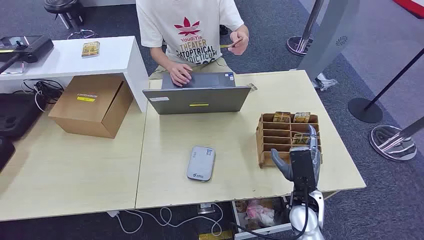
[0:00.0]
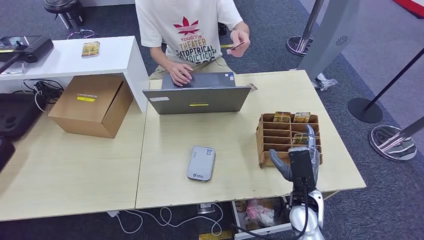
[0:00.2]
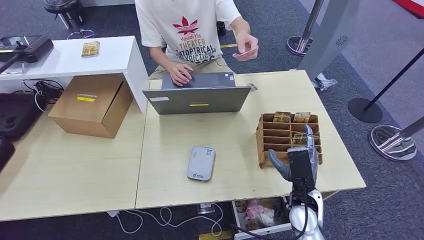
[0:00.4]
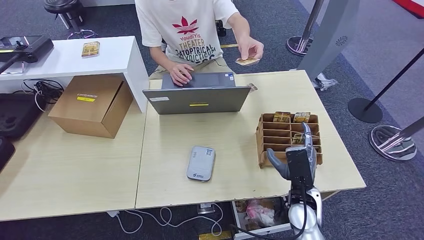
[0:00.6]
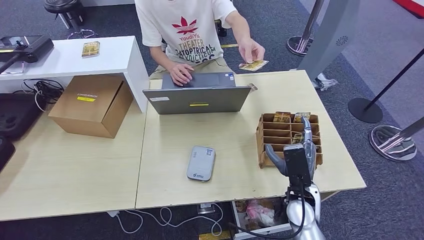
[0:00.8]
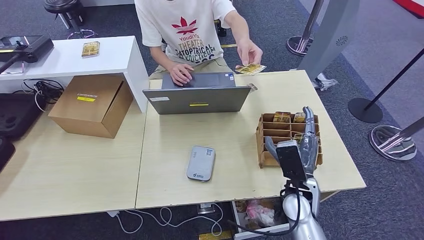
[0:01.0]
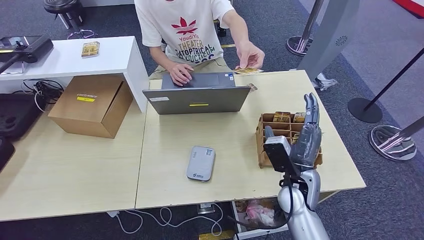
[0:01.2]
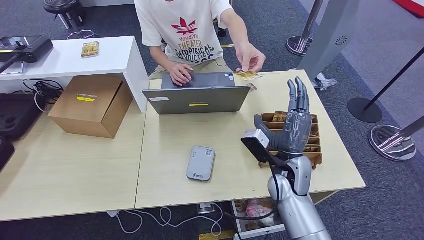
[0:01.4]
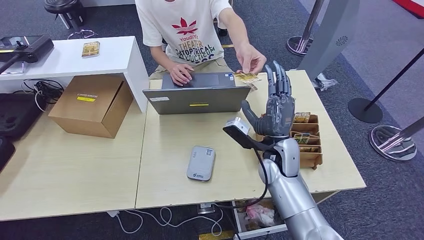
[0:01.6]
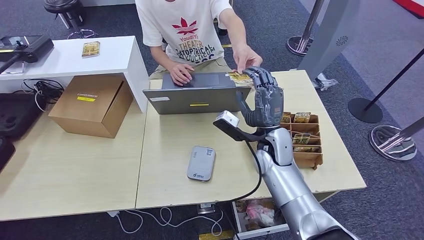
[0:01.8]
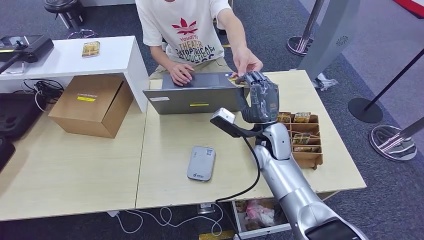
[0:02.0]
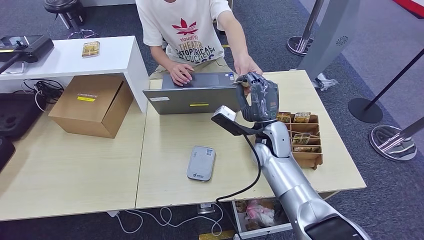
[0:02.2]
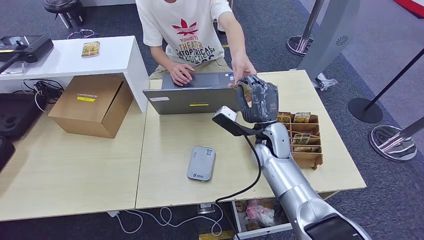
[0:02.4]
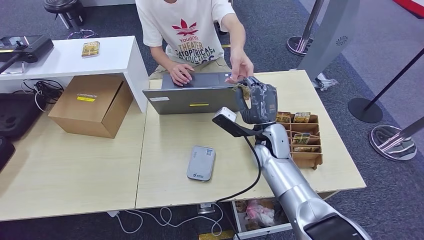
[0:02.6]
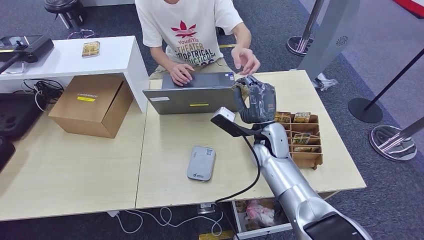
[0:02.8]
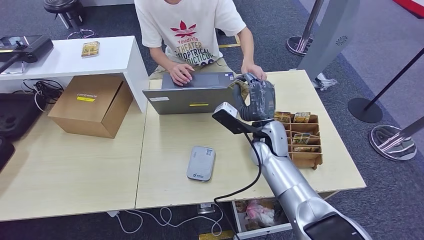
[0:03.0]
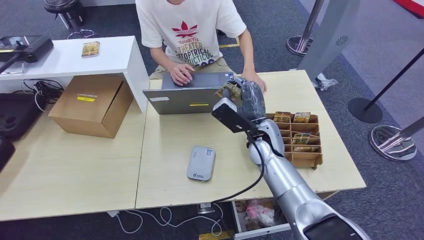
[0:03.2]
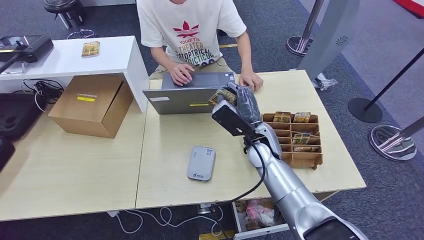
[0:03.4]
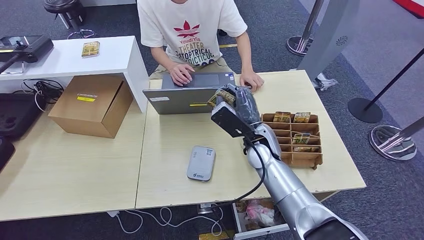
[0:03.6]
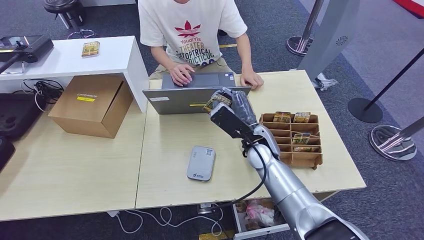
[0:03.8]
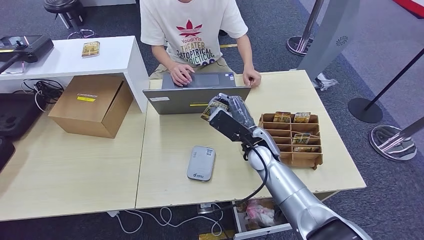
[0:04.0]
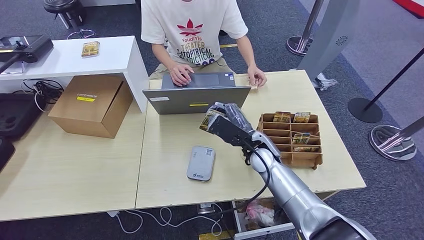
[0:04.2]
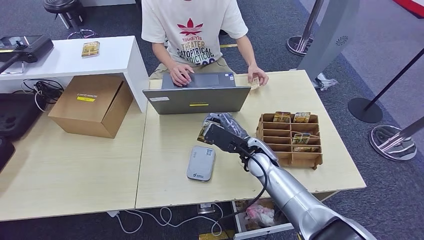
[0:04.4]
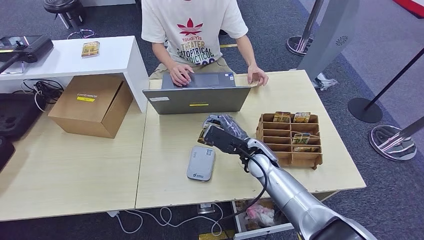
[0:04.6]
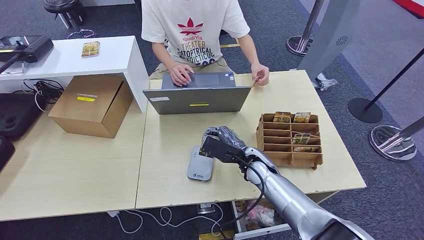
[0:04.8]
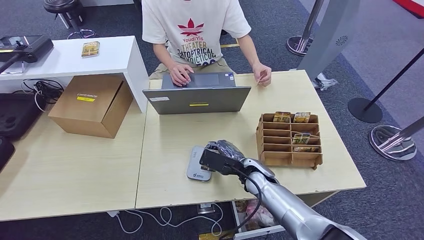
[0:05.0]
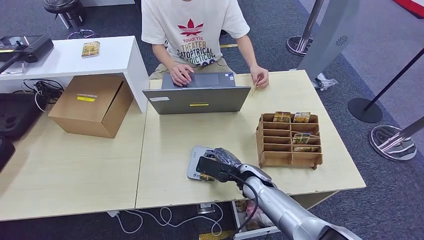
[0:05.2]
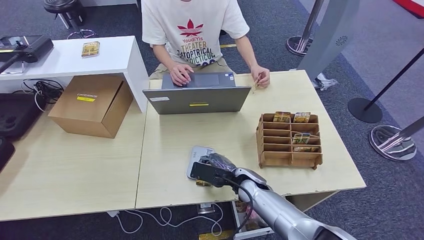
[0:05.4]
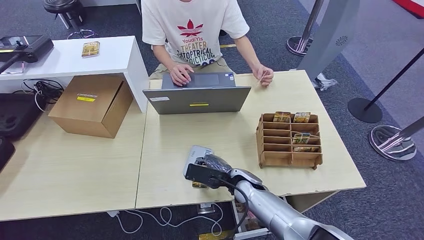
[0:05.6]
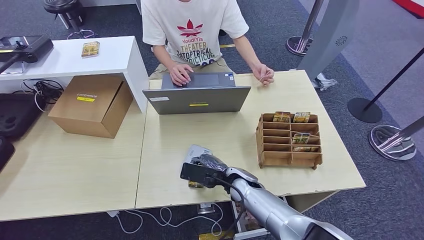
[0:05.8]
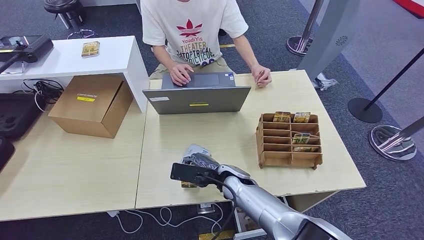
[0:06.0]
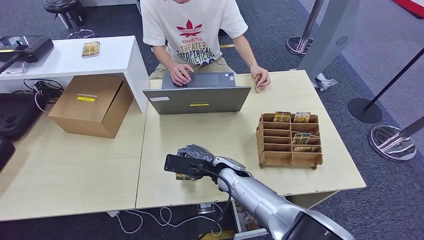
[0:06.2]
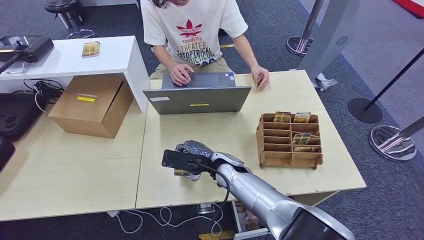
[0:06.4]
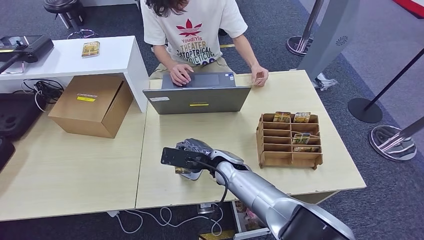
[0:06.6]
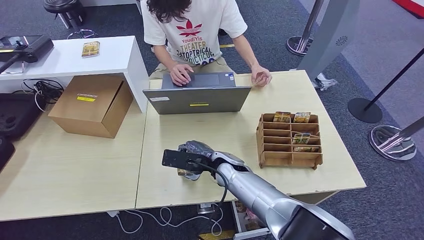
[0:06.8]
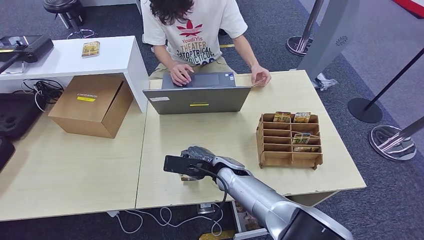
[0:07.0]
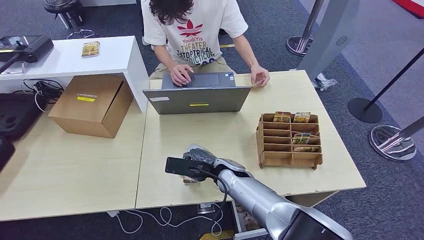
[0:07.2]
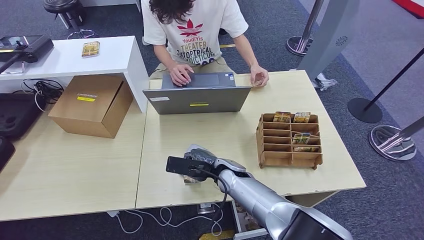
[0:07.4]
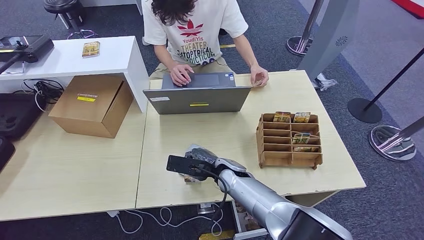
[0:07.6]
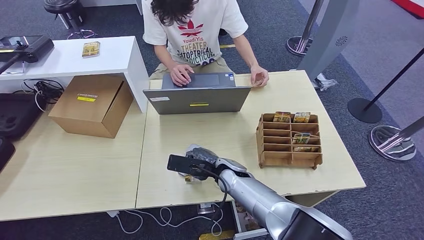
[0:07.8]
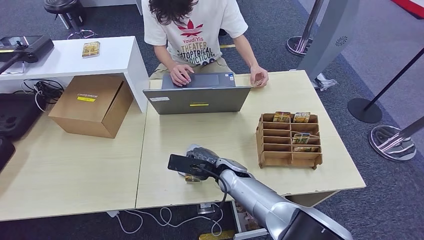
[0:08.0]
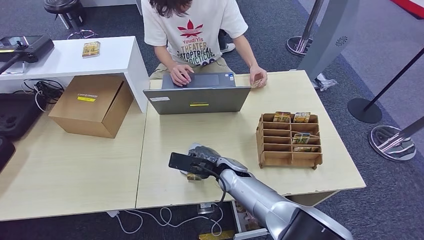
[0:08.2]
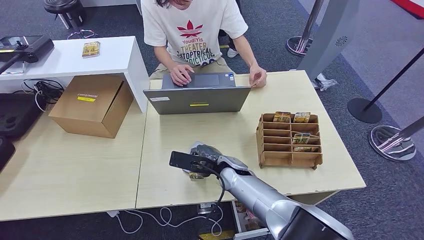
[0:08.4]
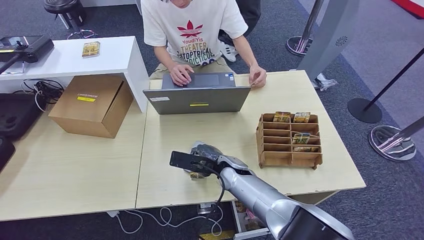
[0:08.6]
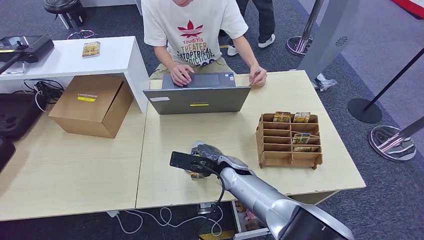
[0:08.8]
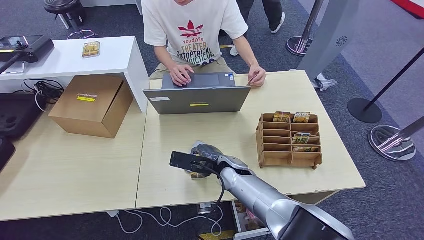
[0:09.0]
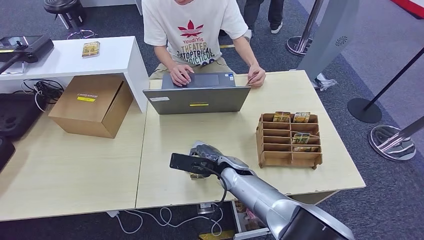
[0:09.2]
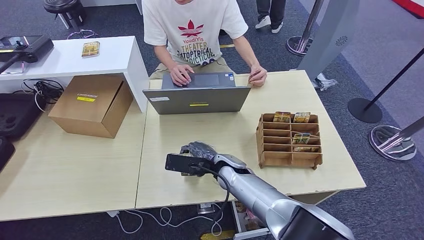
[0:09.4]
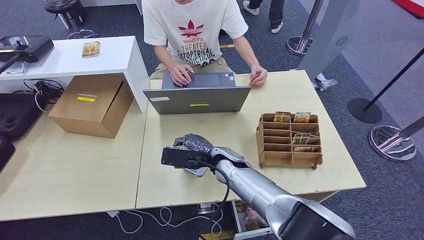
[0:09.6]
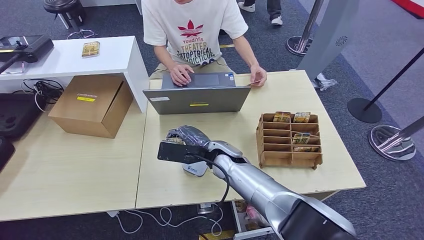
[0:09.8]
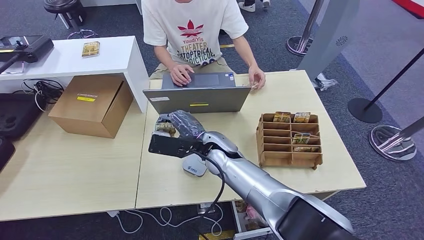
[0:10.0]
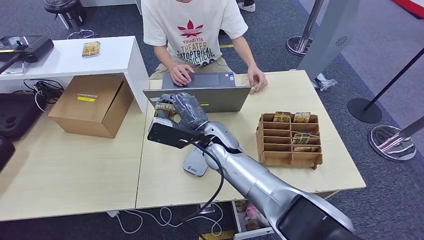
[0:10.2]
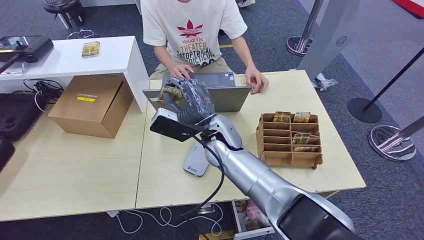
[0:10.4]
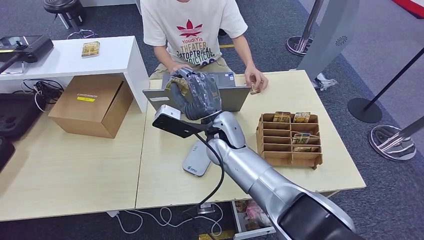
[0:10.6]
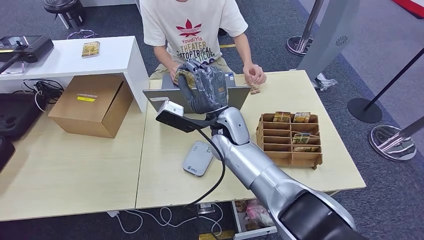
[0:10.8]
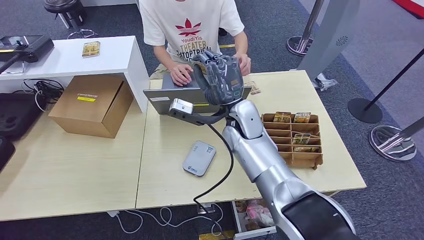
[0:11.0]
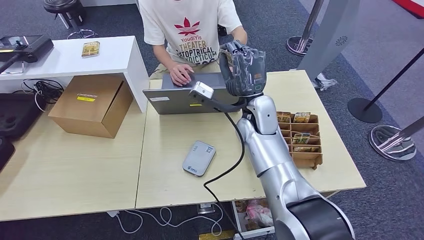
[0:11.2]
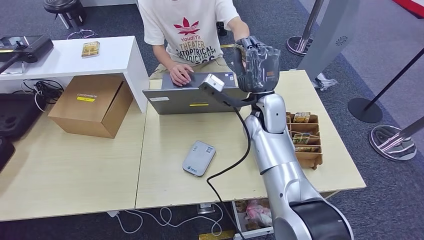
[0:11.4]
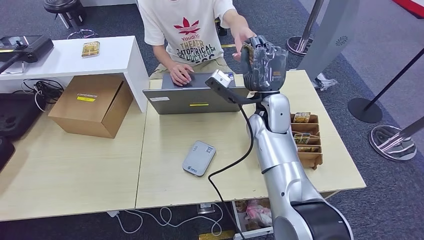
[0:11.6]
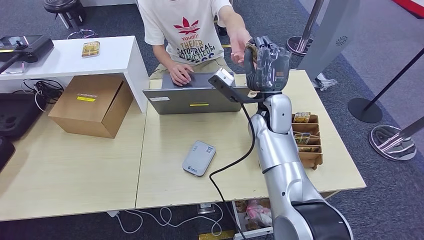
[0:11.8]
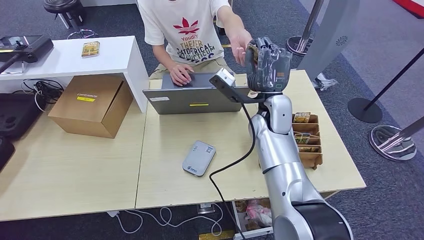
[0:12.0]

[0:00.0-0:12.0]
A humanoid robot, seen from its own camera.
Step, 0:00.0 to 0:03.6: Take the ID card from the person's hand.
Step, 0:04.0 to 0:08.8: Place the ID card on the card reader.
0:01.6 to 0:03.0: The hands move only a little.
0:04.4 to 0:06.0: The right hand moves to the left and downward, roughly 10 cm.
0:06.0 to 0:09.0: The hands make only small movements.
0:09.0 to 0:10.4: The right hand is displaced upward and to the left by some 15 cm.
0:10.4 to 0:12.0: The right hand moves to the right, about 10 cm.

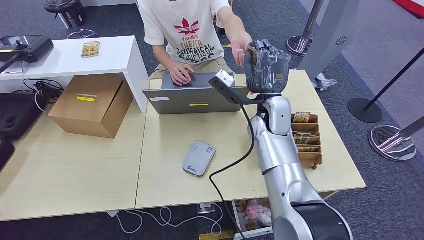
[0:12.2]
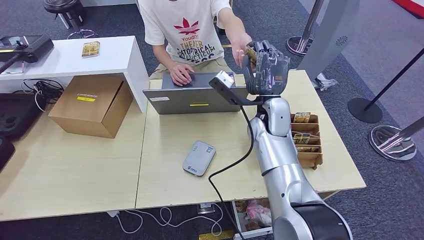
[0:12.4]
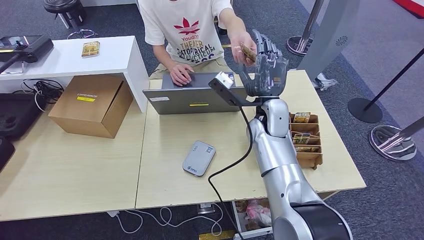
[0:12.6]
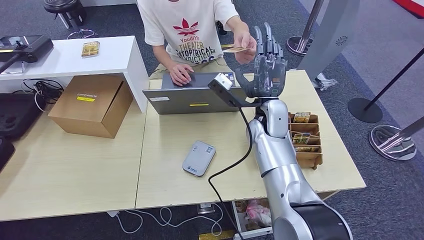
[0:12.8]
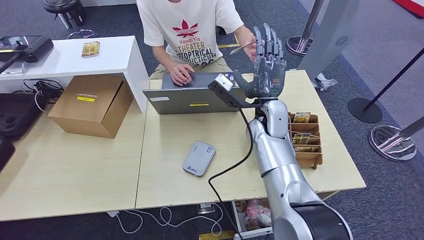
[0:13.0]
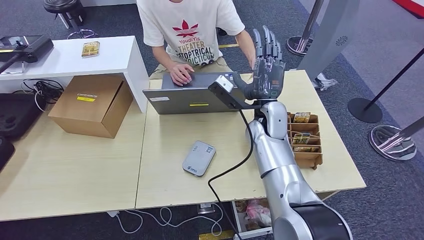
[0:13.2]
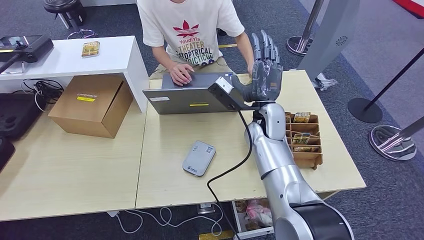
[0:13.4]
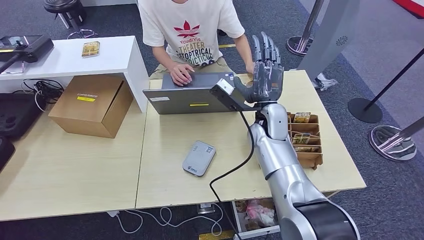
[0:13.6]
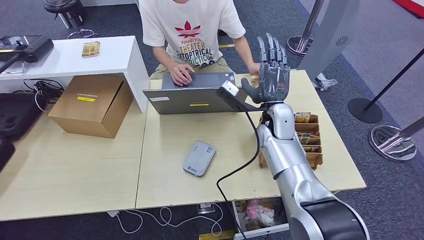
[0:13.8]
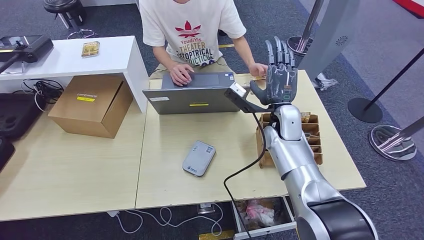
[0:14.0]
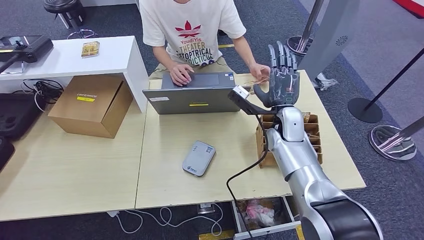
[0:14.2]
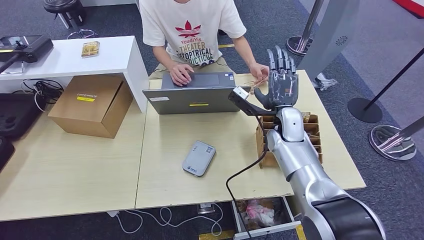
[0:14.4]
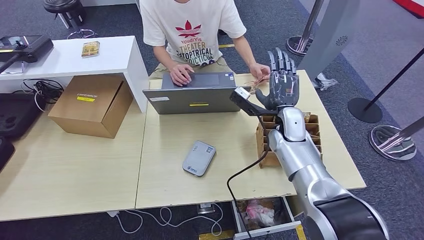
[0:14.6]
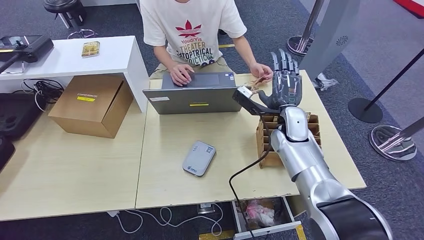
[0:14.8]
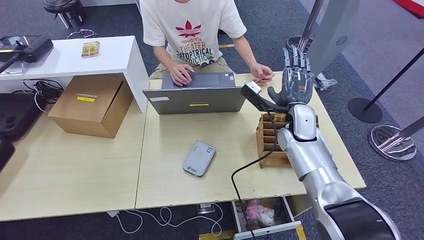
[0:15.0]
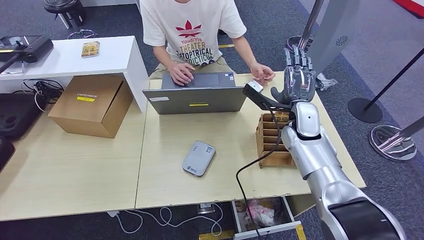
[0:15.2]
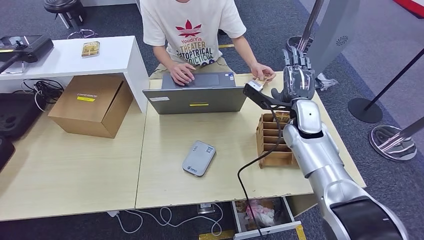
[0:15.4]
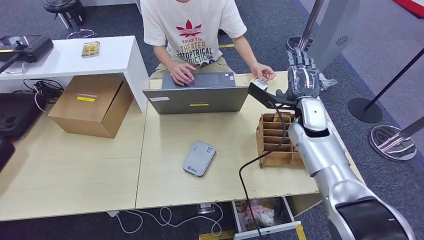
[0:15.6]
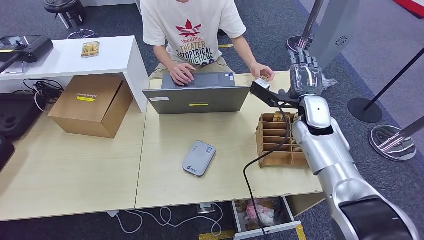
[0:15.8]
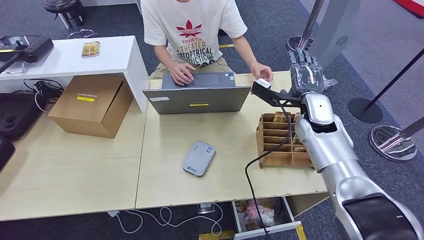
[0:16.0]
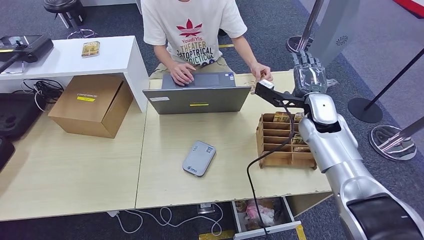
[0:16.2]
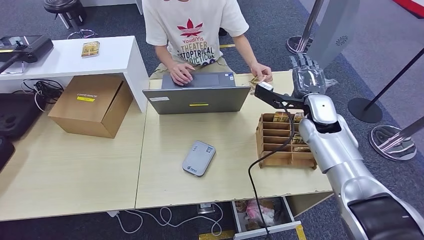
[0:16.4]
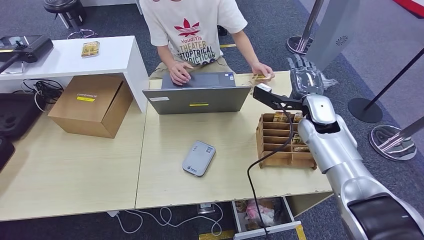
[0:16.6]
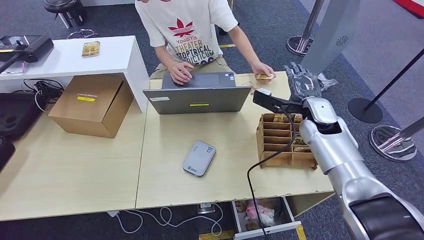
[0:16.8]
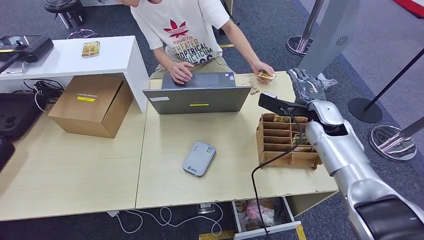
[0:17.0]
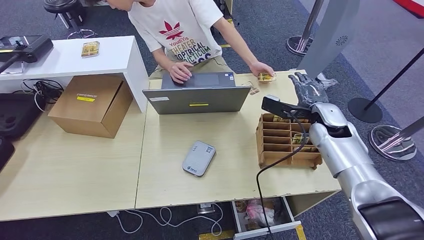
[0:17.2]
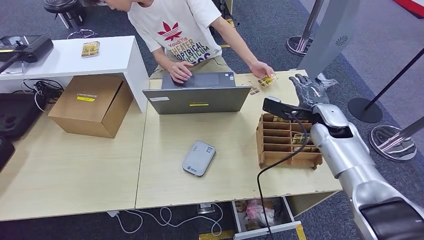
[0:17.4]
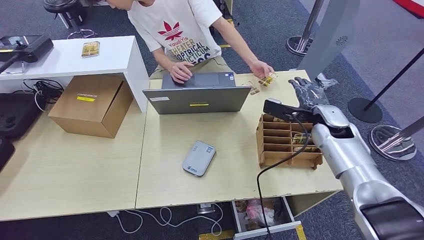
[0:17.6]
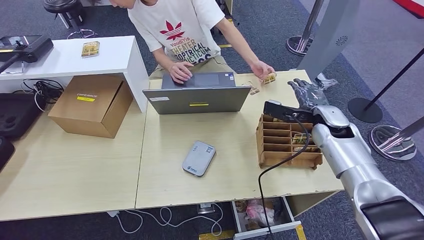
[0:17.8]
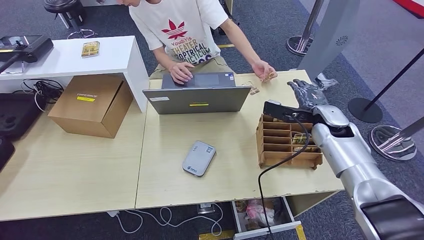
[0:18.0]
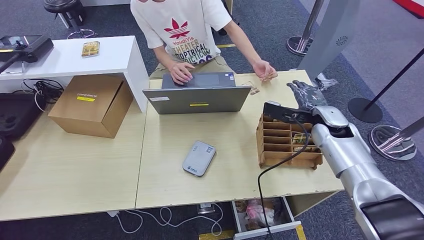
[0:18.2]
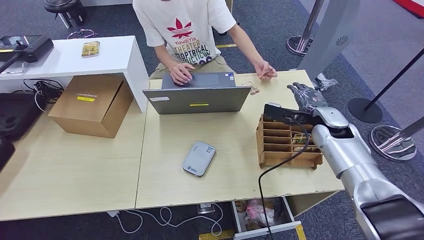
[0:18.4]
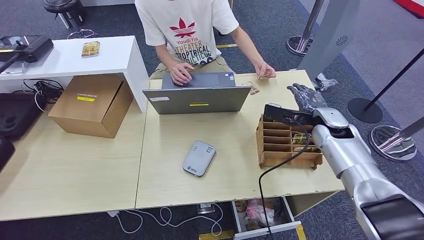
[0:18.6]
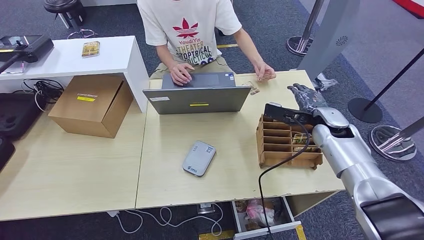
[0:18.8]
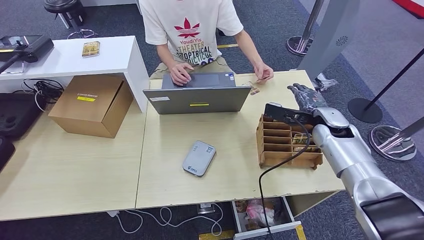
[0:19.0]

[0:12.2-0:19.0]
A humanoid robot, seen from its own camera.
0:12.2 to 0:13.6: The hands move only a little.
0:13.6 to 0:15.0: The right hand is displaced to the right by about 10 cm.
0:15.0 to 0:16.2: The right hand shifts roughly 5 cm to the right.
0:16.2 to 0:17.6: The right hand ends up approximately 5 cm from where it was.
0:17.6 to 0:19.0: The two hands keep their place.
